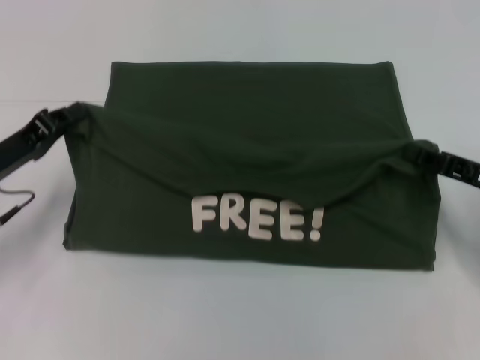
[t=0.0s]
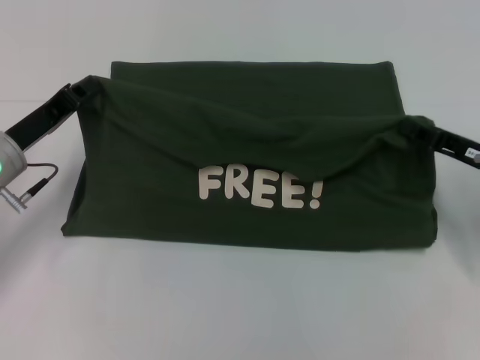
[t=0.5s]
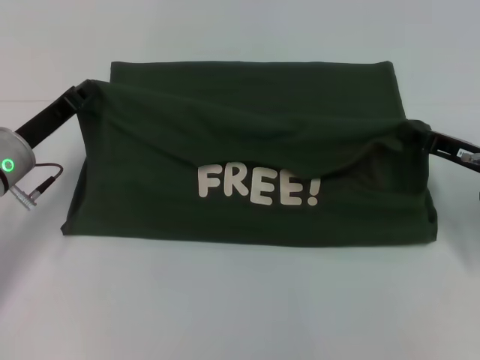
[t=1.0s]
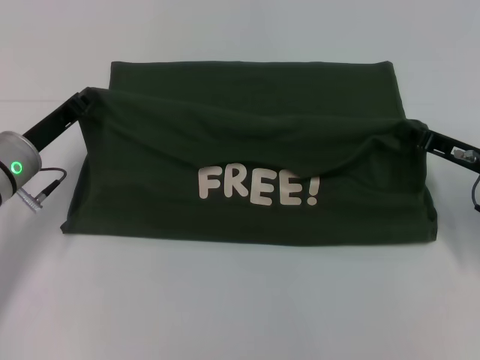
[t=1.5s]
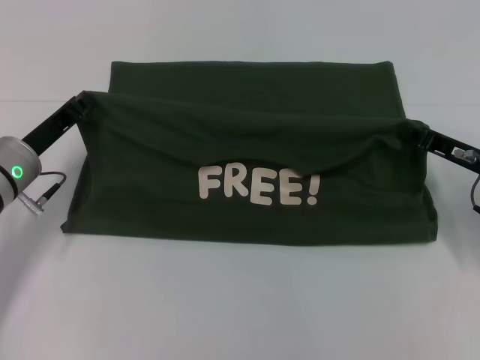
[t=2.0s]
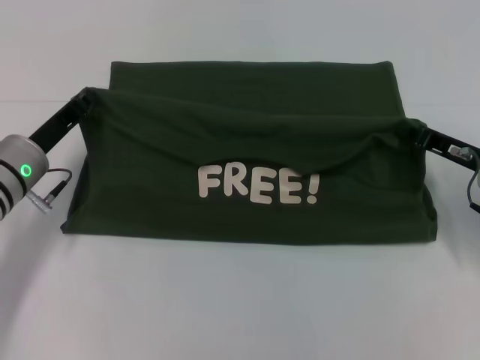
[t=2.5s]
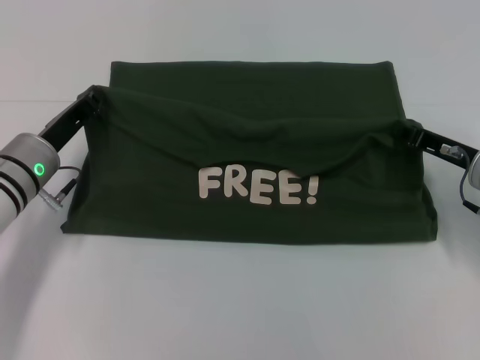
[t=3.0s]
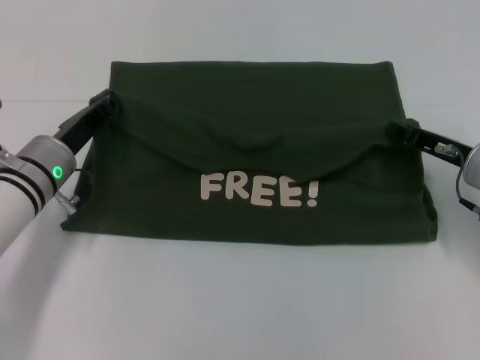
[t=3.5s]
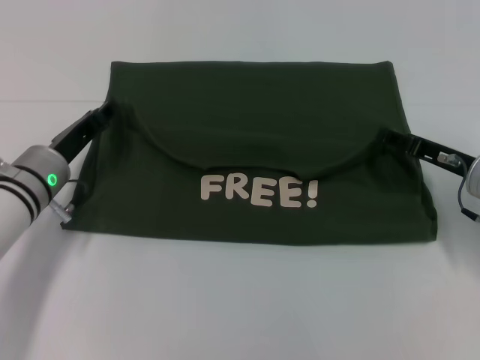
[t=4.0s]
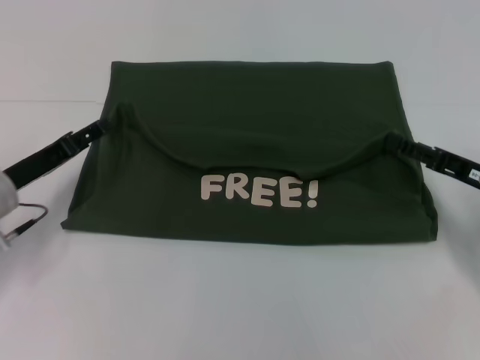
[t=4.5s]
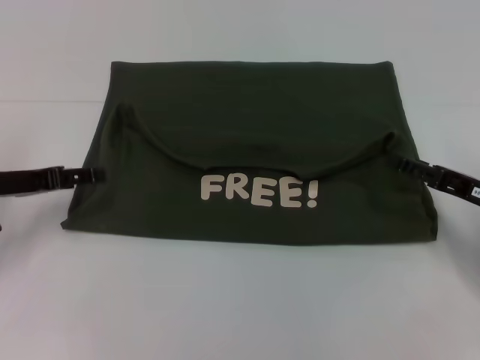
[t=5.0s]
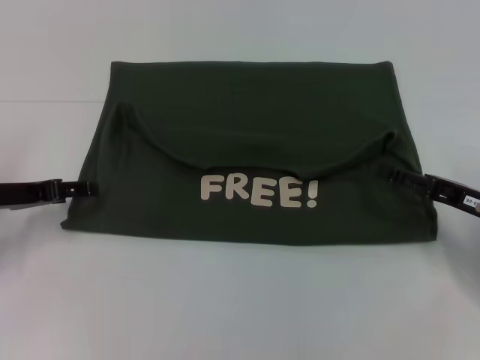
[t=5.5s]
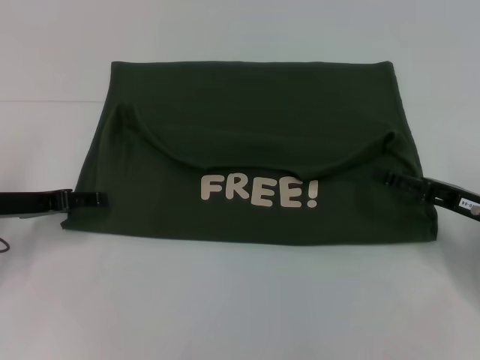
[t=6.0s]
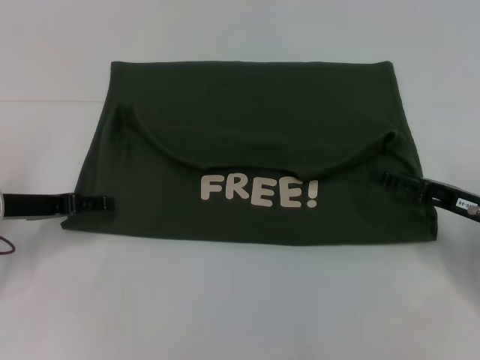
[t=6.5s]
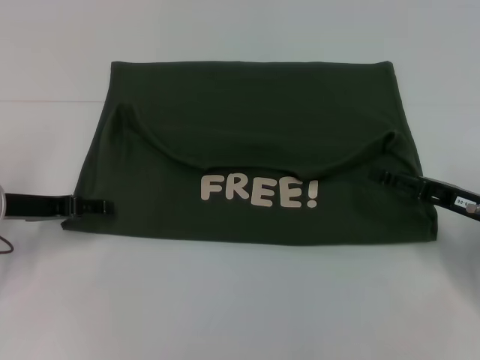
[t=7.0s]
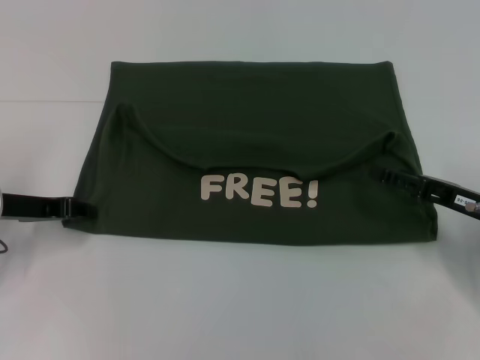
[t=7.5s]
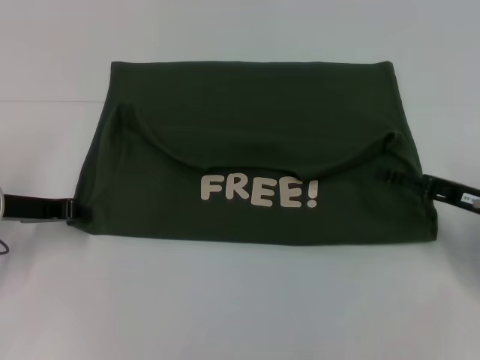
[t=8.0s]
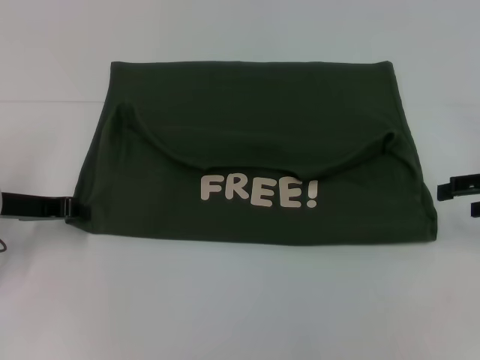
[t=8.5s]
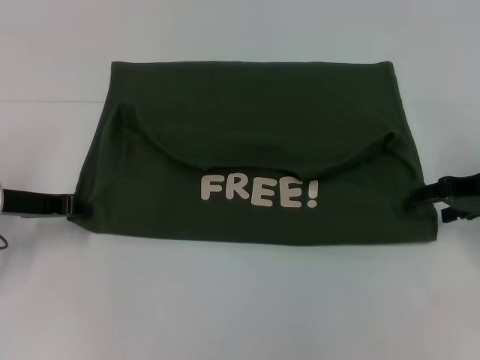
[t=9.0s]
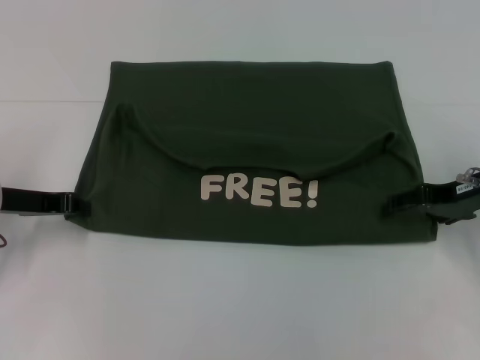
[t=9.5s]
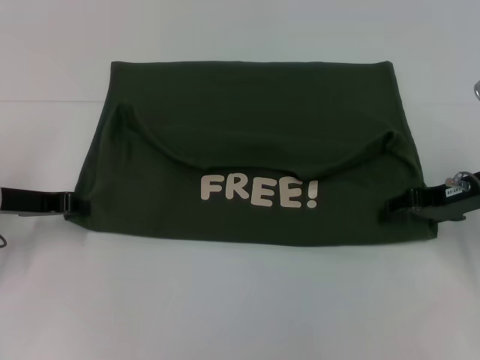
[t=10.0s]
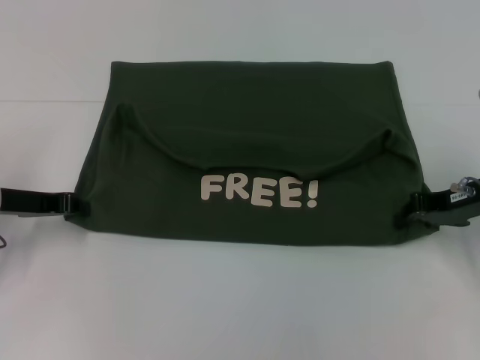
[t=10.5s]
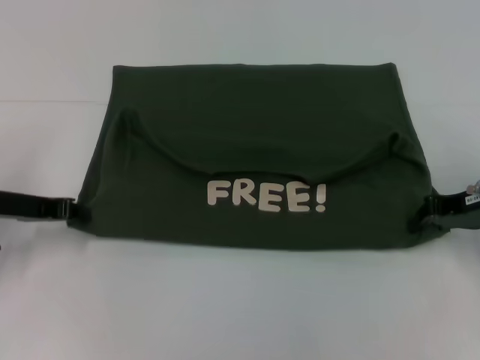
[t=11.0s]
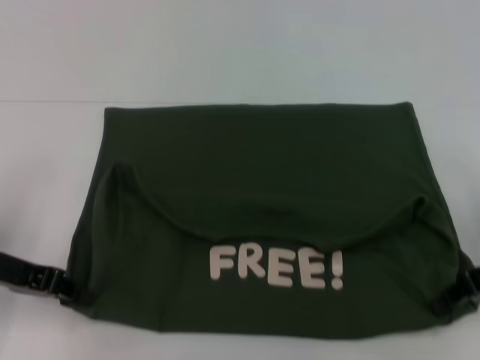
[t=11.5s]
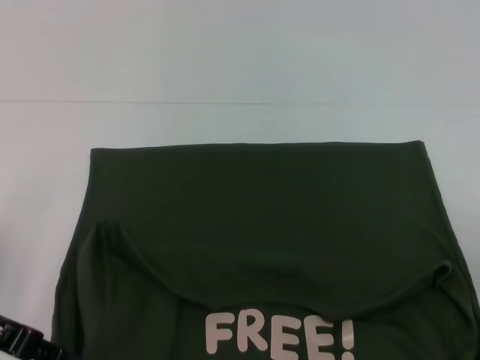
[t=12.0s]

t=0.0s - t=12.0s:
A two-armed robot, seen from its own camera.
Step, t=0.0s - t=3.5s: Fold the clothes with your left hand.
Step, t=0.0s - t=3.5s: Fold the clothes with your right hand.
t=0.0s - t=2.0s: The left gripper changes place by roughly 5 cm.
t=2.0s - t=4.0s: The right gripper opens.
t=4.0s - t=6.0s: The left gripper heads to the left, covering about 10 cm, and opens. The right gripper moves backward, approximately 5 cm, and opens its fingers.
t=6.0s - t=8.0s: The left gripper closes its fingers.
t=8.0s - t=10.0s: The right gripper travels forward by approximately 5 cm.
t=10.0s - t=12.0s: Both grippers travel together backward, roughly 10 cm. The right gripper closes its fingers.

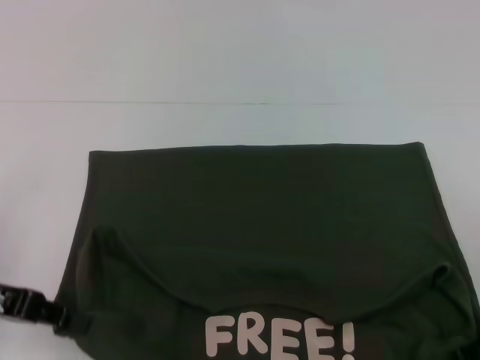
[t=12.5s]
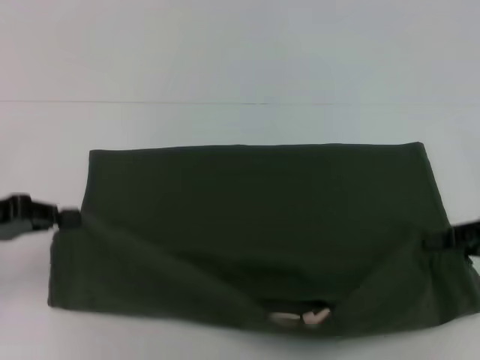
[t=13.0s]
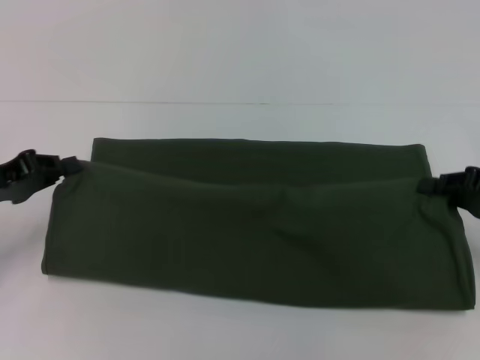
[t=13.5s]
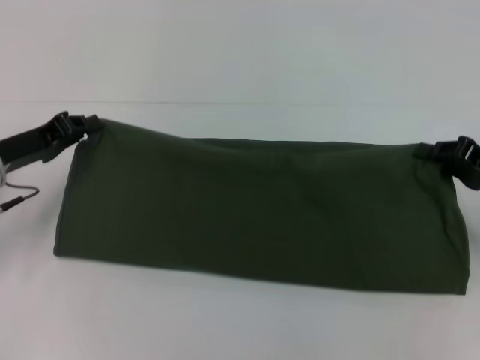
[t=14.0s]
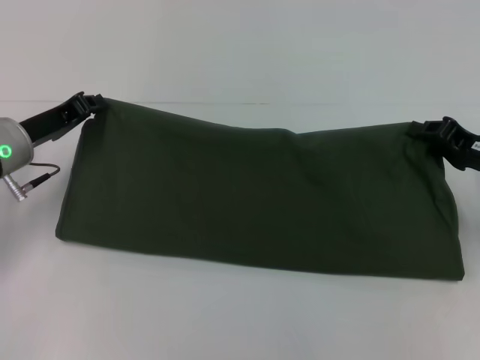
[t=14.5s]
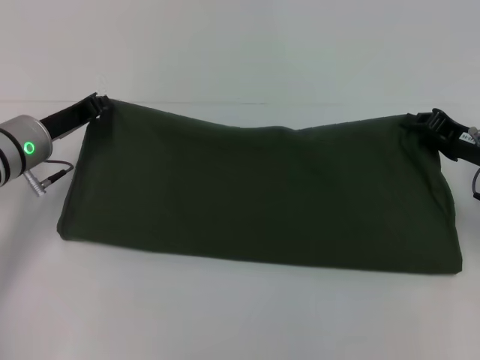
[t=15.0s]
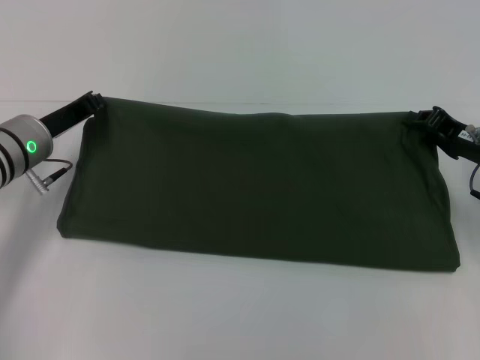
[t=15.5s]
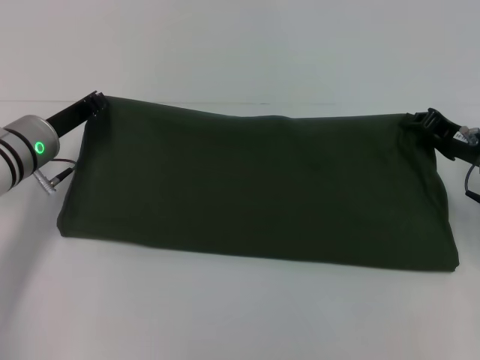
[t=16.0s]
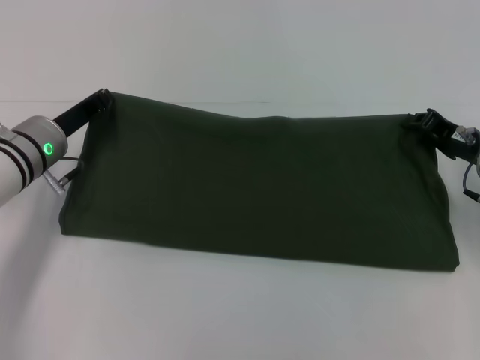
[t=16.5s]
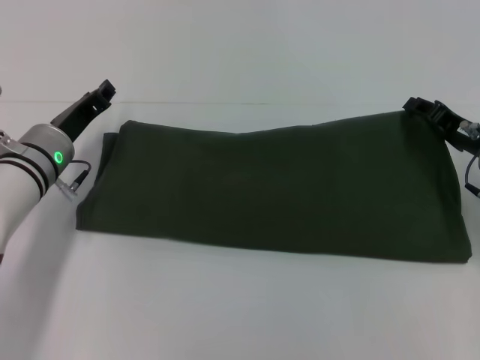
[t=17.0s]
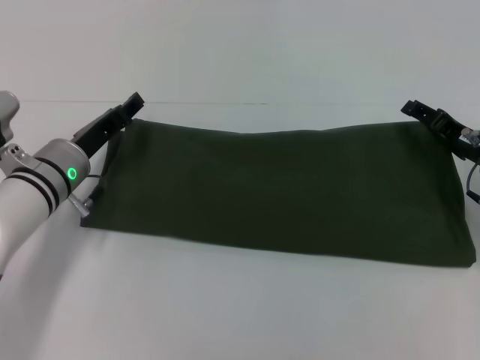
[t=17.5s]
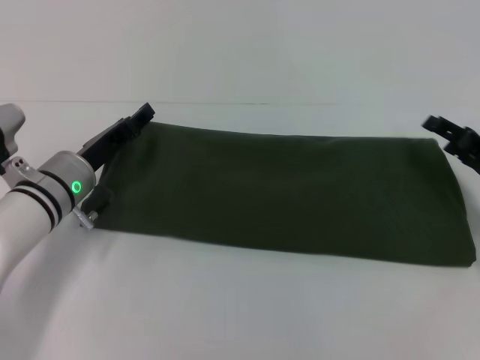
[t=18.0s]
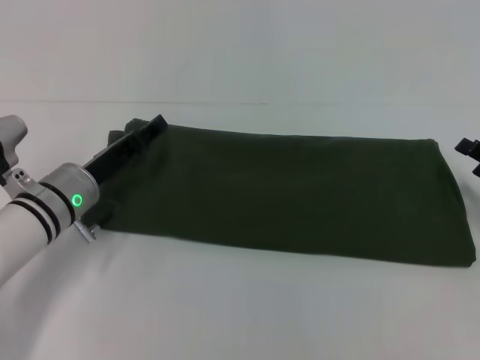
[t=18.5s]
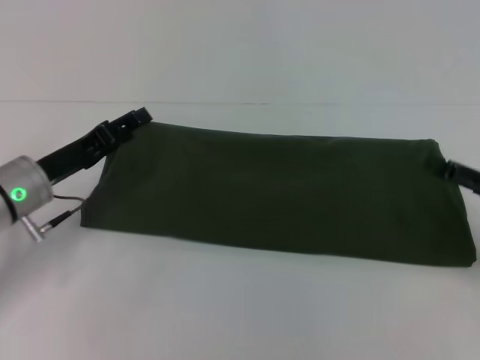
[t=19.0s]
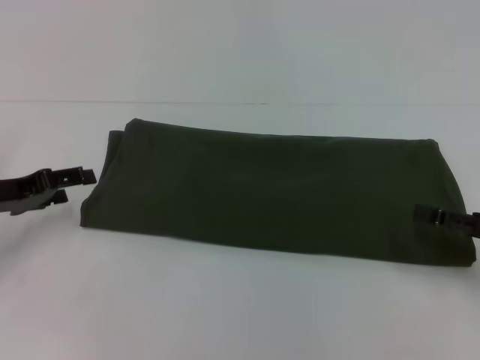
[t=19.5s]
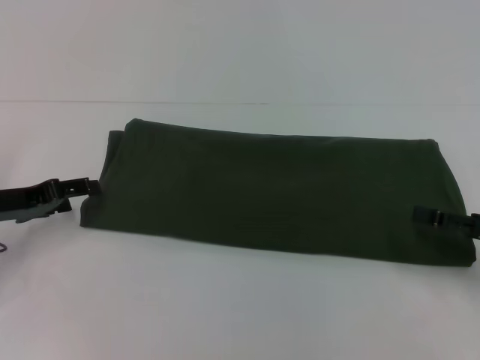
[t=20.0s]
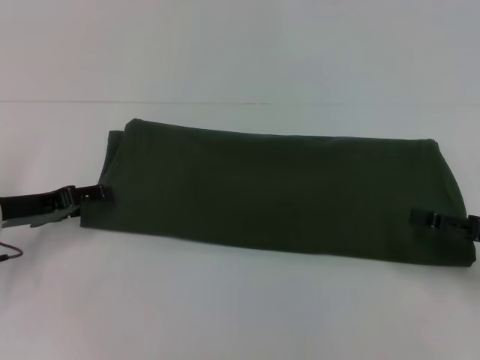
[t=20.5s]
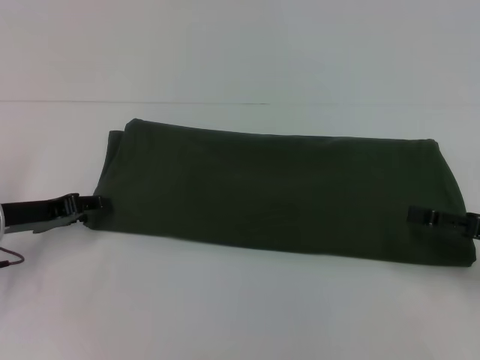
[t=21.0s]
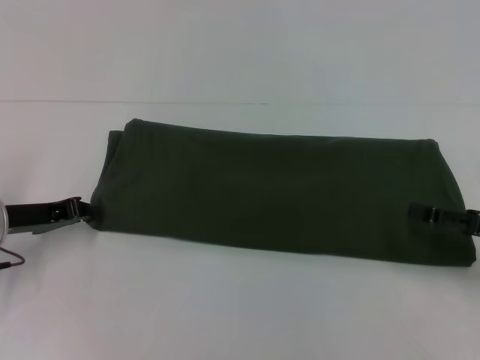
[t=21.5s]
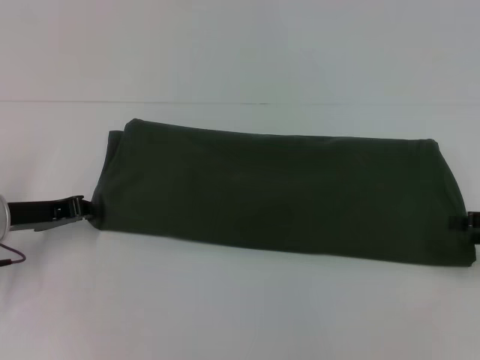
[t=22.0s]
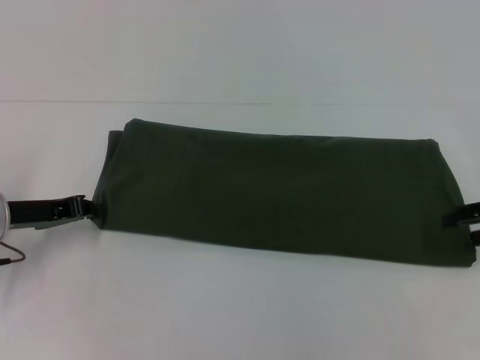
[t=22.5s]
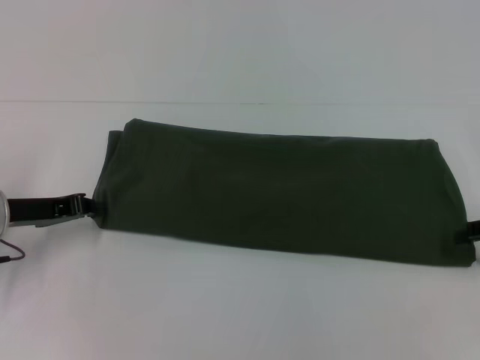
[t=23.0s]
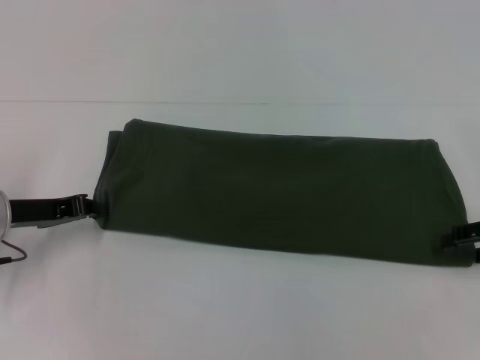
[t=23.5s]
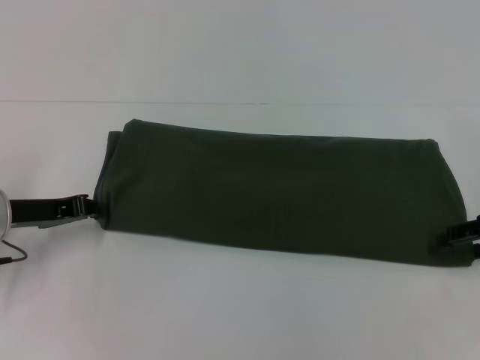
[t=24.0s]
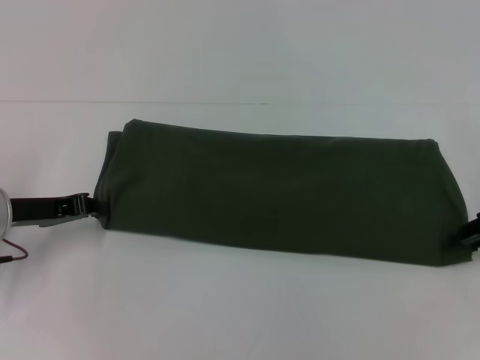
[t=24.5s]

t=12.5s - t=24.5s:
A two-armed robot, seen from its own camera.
Step, t=12.5s - t=17.5s: Fold the clothes with your left hand.
Step, t=12.5s - t=17.5s: Fold the clothes with your right hand.
t=12.5s - t=14.5s: Both grippers travel together forward, some 10 cm.
t=14.5s - t=16.5s: There are only small adjustments of the grippers.
t=16.5s - t=18.5s: The right gripper goes roughly 10 cm to the right and backward, and opens its fingers. Meanwhile the left gripper shifts by roughly 5 cm, and opens its fingers.
t=18.5s - t=20.5s: The left gripper moves to the left, roughly 10 cm.
t=20.5s - t=22.5s: The left gripper closes up. The right gripper shifts some 10 cm upward and forward.

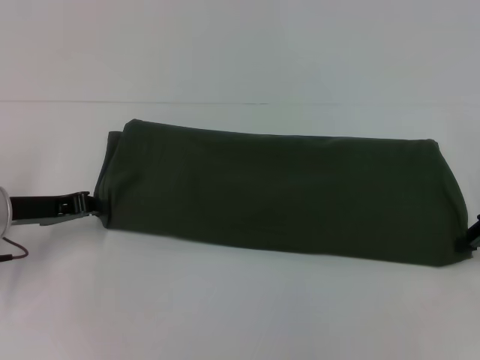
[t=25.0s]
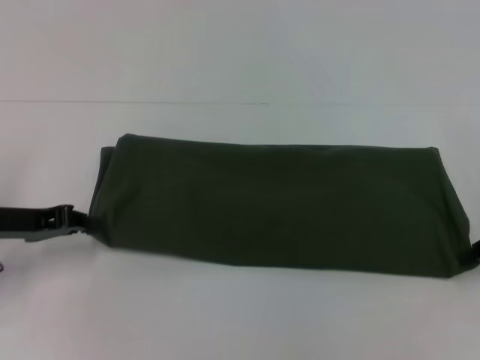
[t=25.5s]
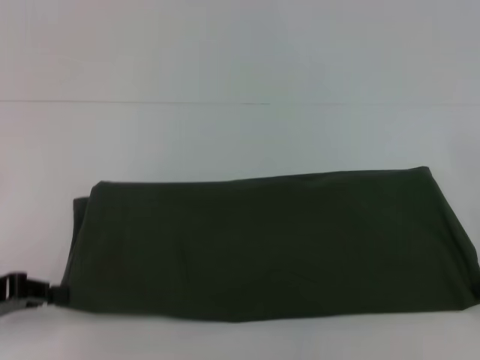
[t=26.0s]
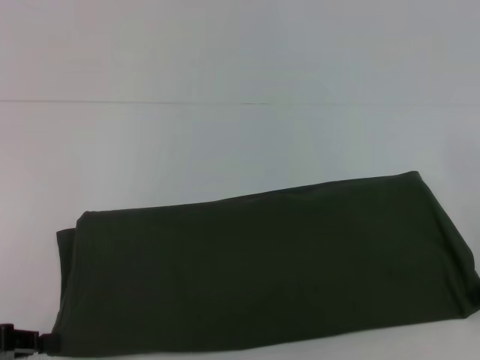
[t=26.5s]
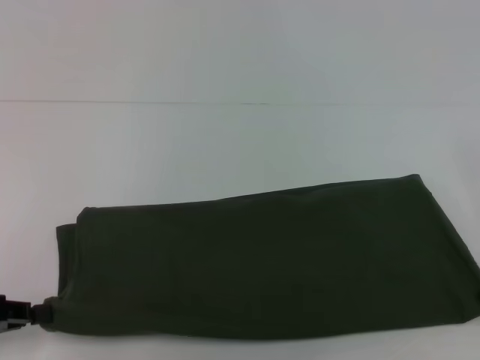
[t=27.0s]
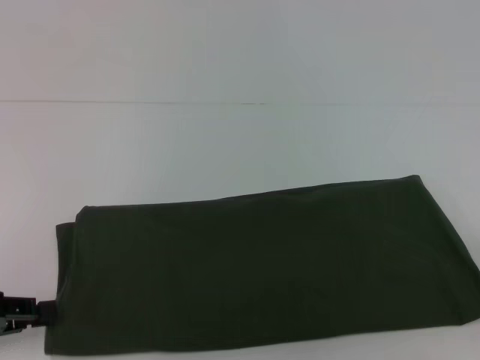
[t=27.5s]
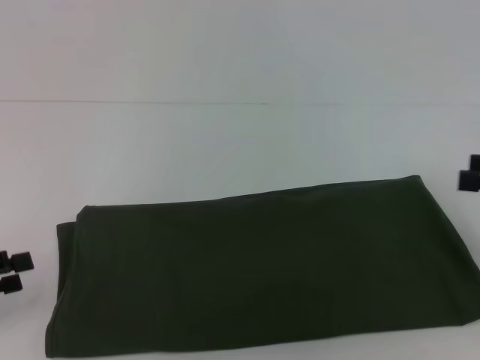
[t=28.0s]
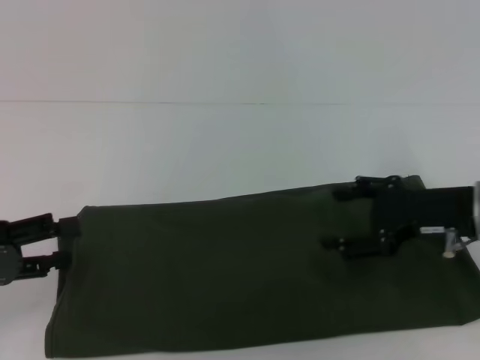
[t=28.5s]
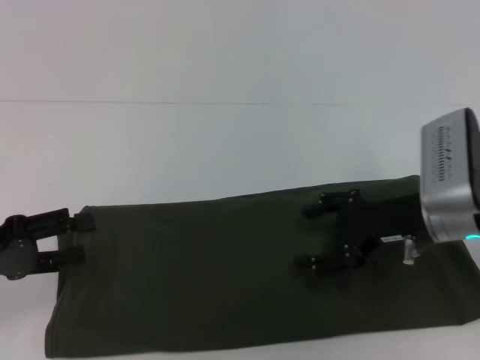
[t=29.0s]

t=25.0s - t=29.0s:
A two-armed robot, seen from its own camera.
Step, t=25.0s - t=27.0s: Pull the clothes with your left hand.
Step, t=25.0s - t=27.0s: Pull the clothes with your right hand.
t=25.0s - t=27.0s: The left gripper travels backward and to the left by some 15 cm.
t=27.0s - t=29.0s: The right gripper shifts about 15 cm to the left, and opens up. Meanwhile the left gripper ends up about 5 cm from where it was, and opens its fingers.
